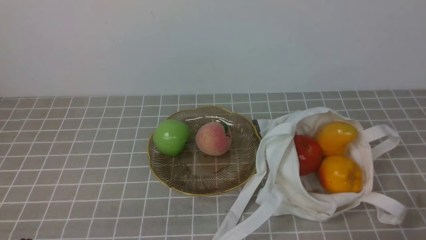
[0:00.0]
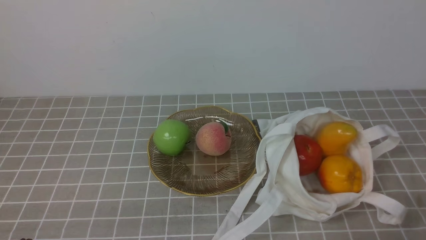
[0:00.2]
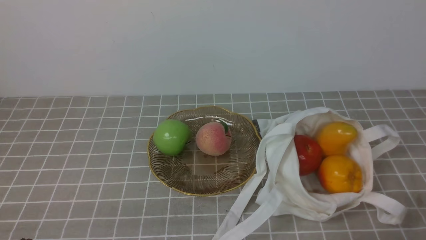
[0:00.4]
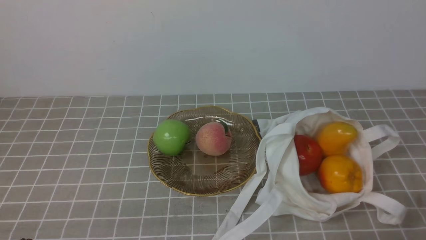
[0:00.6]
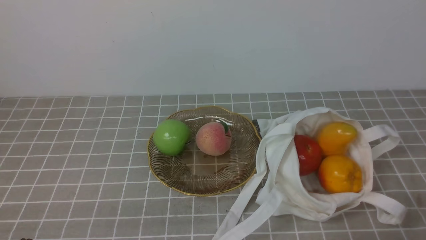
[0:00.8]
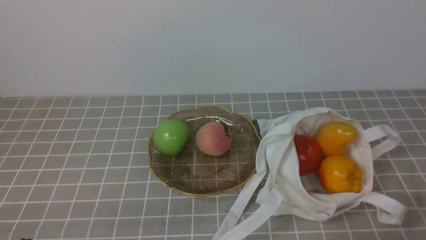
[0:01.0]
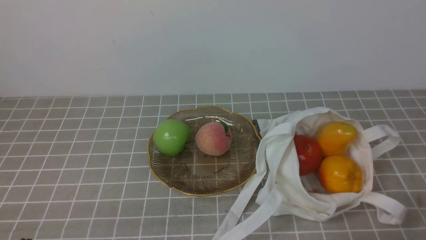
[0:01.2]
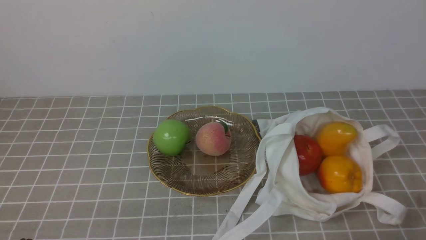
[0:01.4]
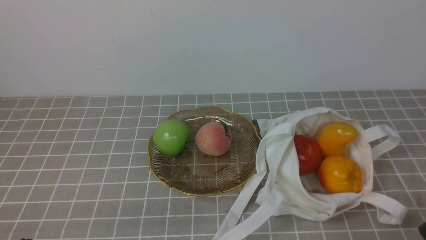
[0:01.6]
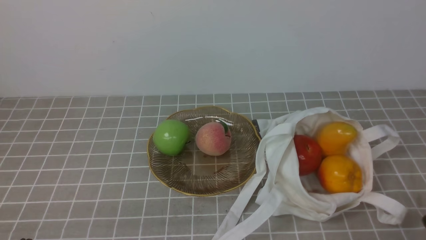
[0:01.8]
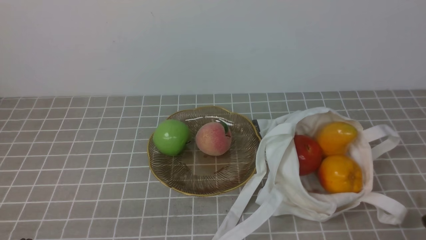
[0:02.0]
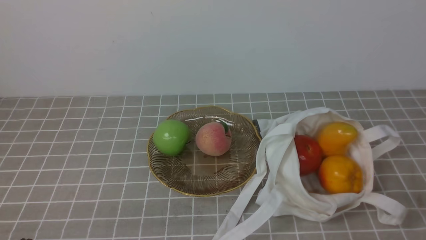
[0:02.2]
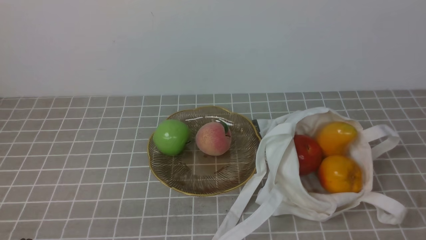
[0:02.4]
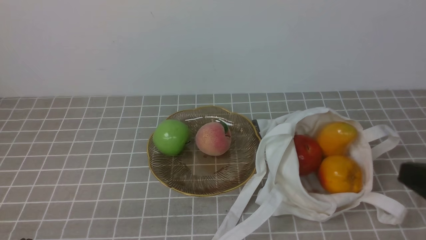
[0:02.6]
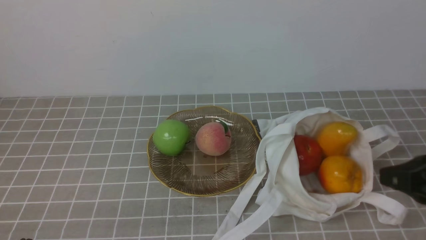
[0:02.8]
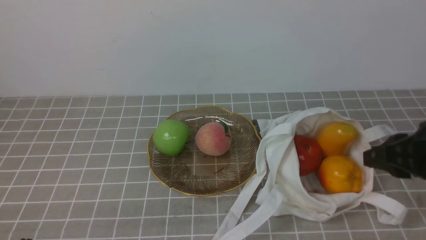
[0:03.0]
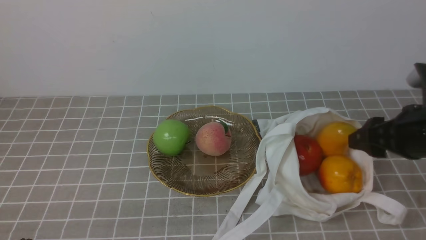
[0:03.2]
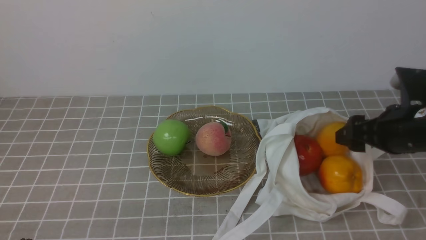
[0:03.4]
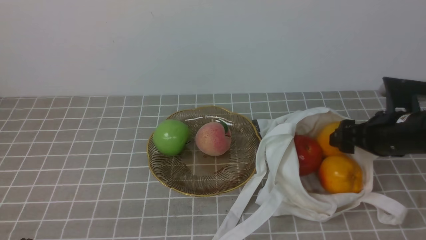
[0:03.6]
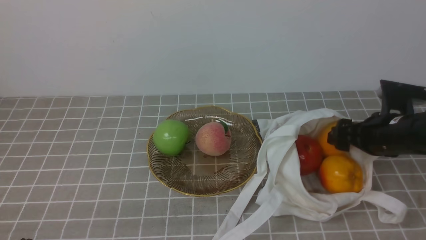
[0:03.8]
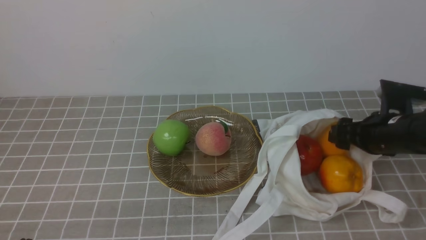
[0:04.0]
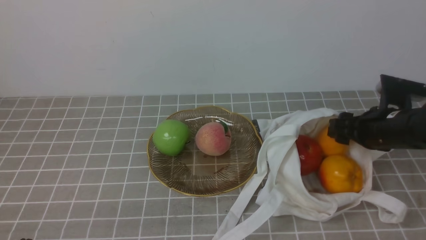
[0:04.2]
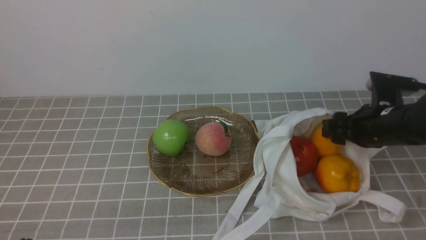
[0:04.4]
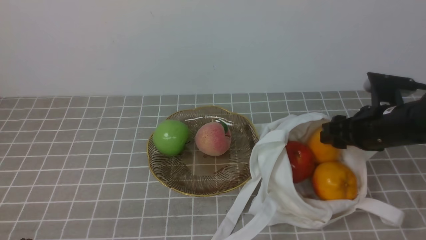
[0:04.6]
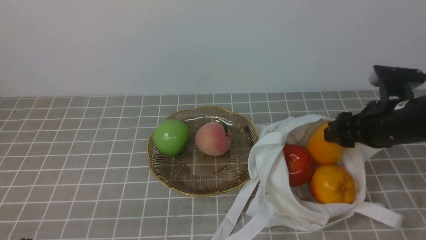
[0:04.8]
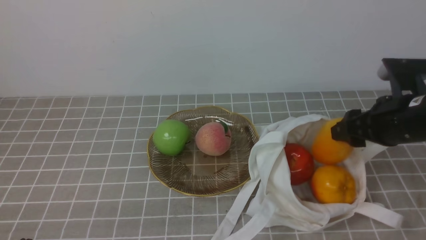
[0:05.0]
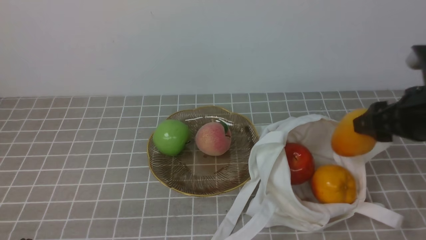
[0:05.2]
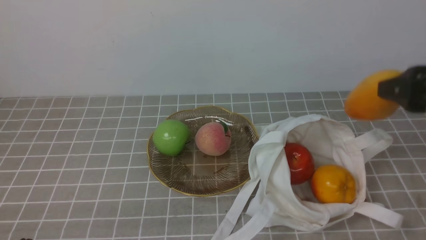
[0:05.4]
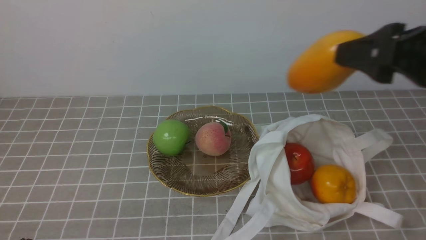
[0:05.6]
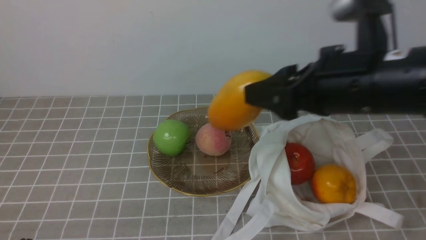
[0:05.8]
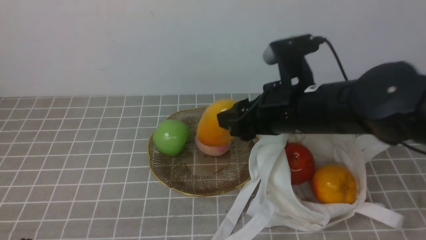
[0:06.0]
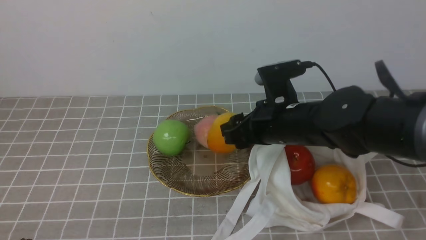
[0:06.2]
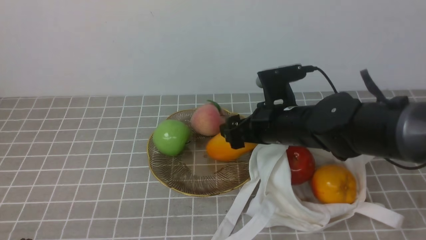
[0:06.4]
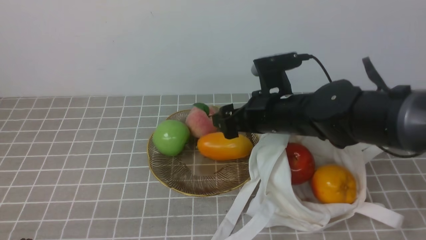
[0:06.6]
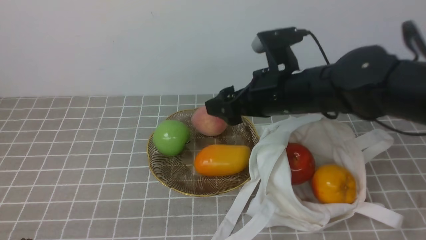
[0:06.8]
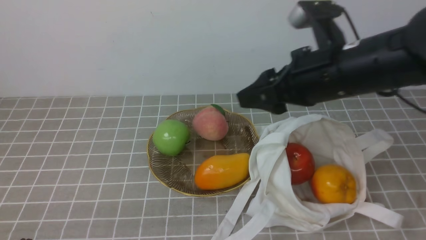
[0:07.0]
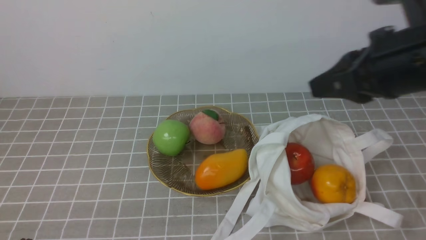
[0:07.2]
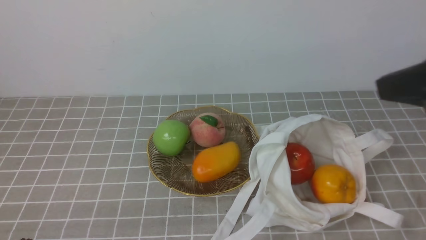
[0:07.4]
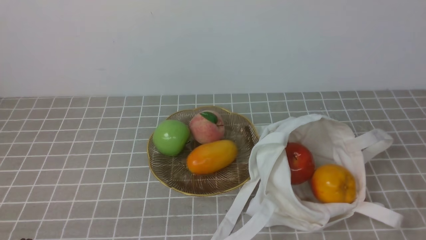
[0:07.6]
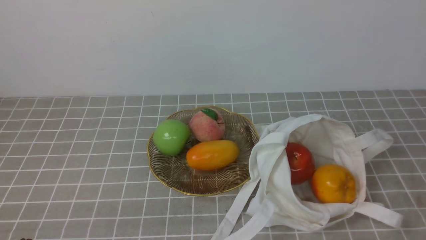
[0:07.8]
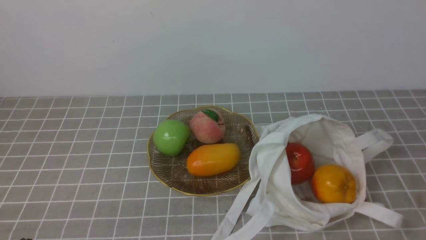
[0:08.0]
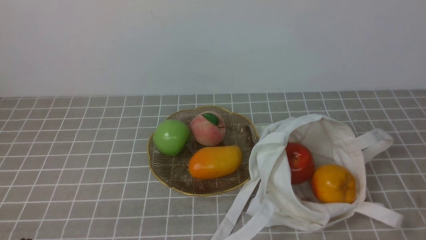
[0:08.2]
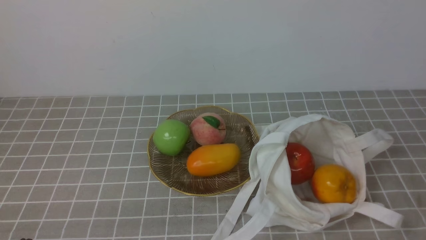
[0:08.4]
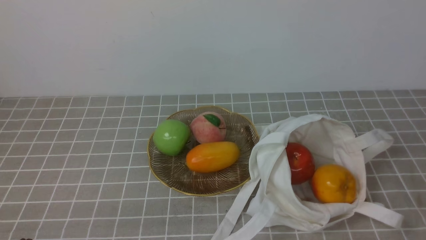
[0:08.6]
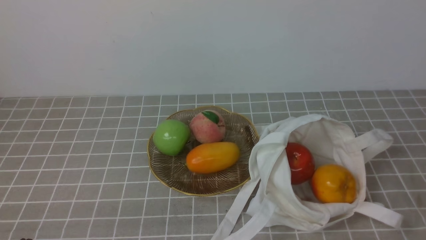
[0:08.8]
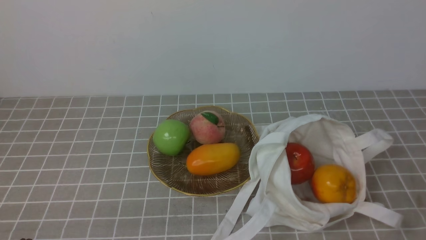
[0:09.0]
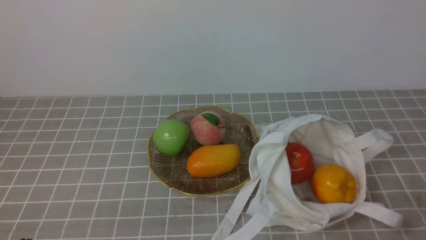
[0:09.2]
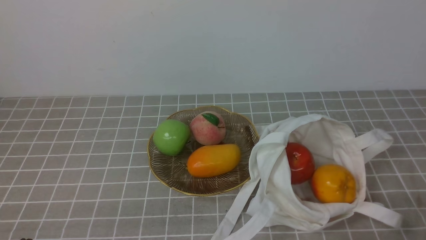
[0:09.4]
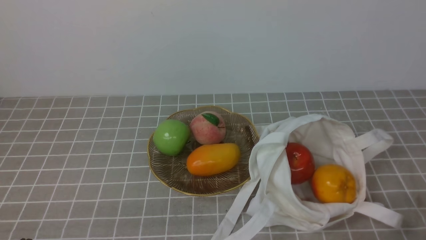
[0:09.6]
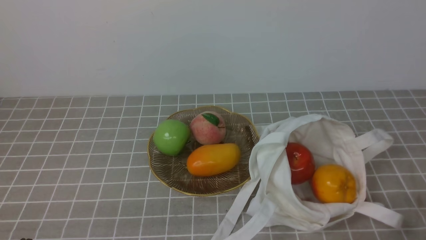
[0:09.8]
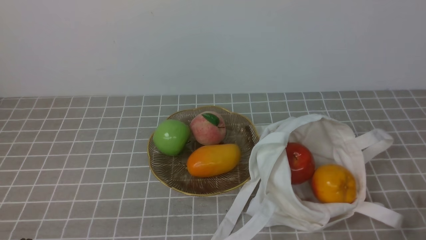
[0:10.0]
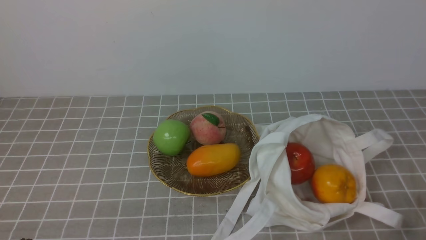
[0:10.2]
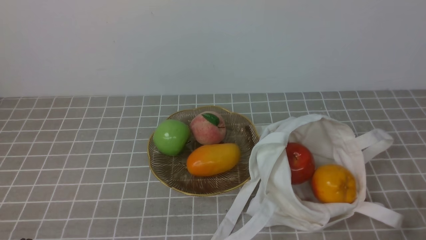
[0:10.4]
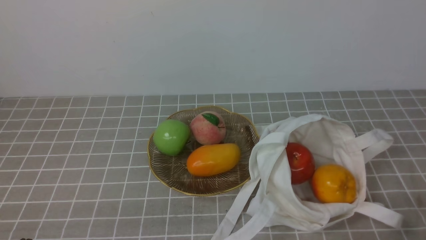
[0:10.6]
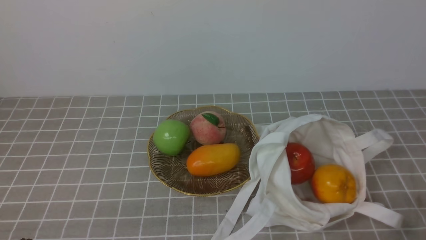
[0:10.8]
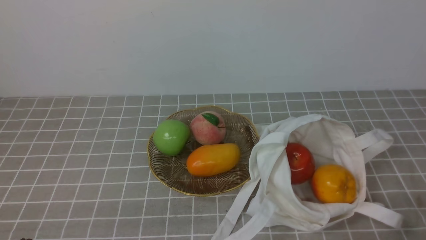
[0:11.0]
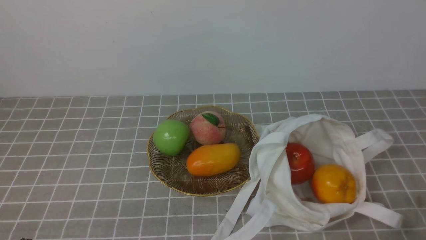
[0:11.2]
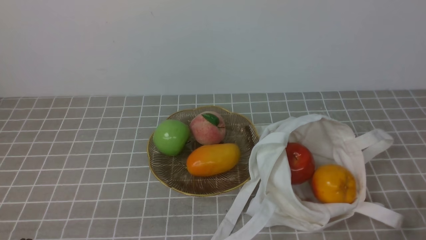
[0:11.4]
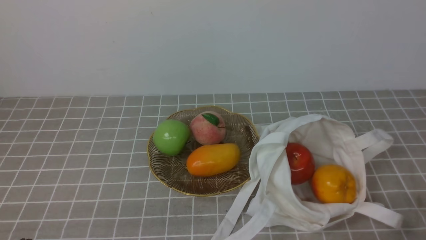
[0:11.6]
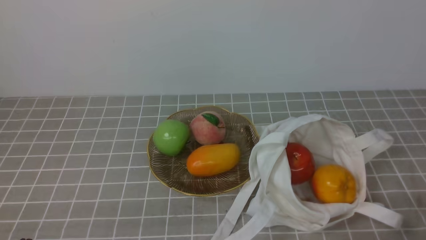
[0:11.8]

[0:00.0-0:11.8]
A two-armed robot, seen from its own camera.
Step, 0:00.0 to 0:04.8: use the right arm to grab a mango from the bag.
Step, 0:05.0 to 0:06.4: use the right arm to put the mango into the empty plate on the left.
0:01.4 to 0:03.0: The right gripper is displaced forward and upward by some 20 cm.
0:03.0 to 0:04.4: The right gripper travels forward and downward by about 15 cm.
0:04.4 to 0:06.0: The right gripper goes about 15 cm to the left and upward.
0:06.0 to 0:07.4: The right gripper heads backward, to the right and upward, covering about 25 cm, and closes up.
0:07.4 to 0:08.8: The right gripper goes approximately 15 cm downward and backward.
0:10.4 to 0:11.8: Neither gripper changes place.
